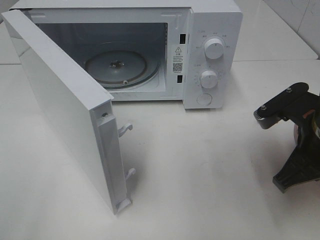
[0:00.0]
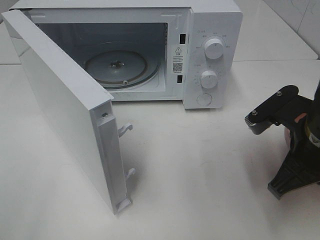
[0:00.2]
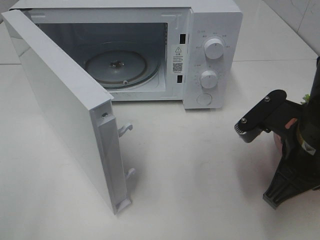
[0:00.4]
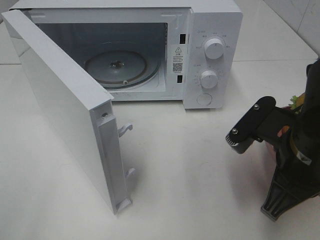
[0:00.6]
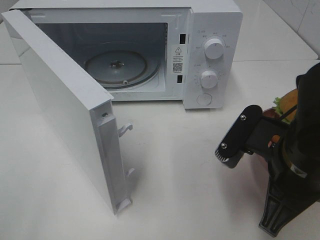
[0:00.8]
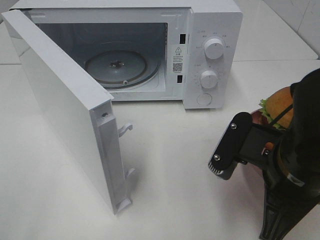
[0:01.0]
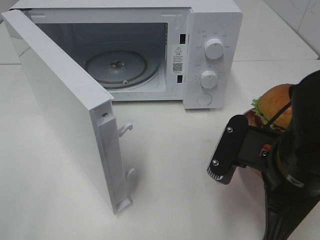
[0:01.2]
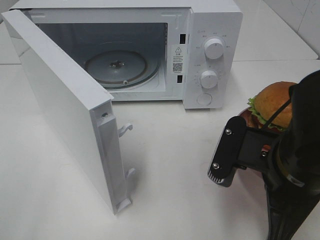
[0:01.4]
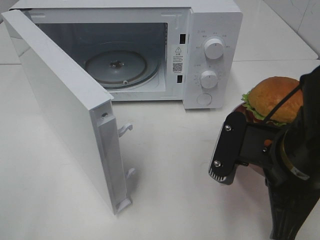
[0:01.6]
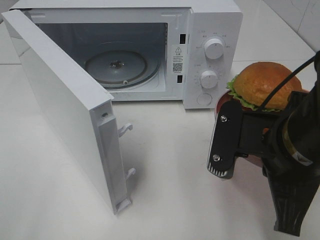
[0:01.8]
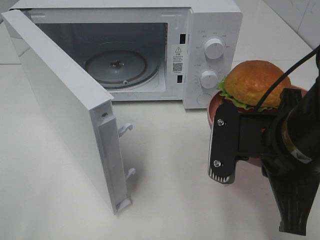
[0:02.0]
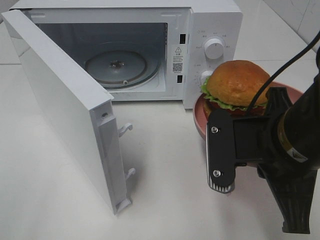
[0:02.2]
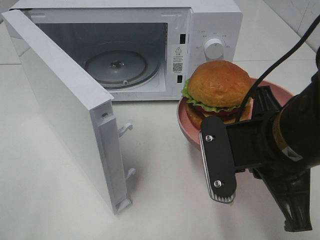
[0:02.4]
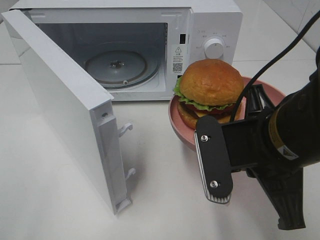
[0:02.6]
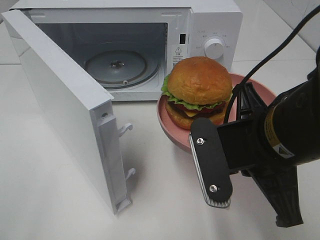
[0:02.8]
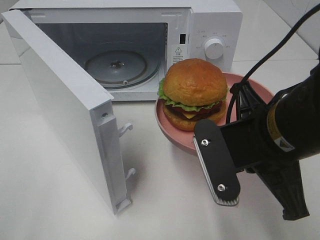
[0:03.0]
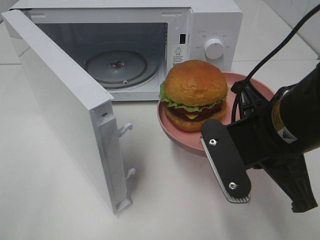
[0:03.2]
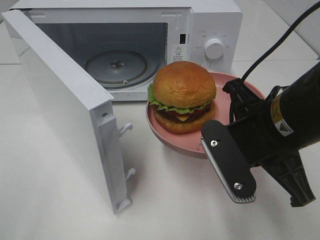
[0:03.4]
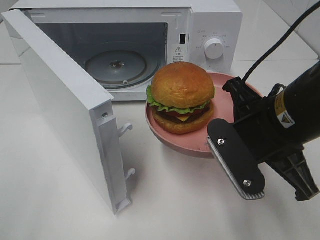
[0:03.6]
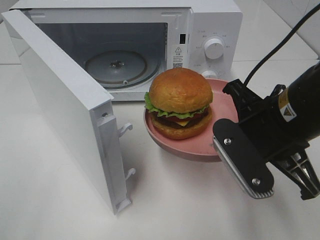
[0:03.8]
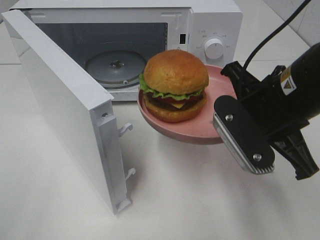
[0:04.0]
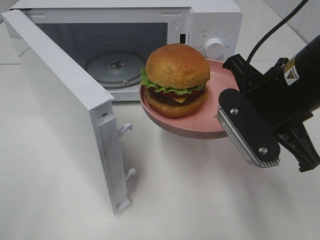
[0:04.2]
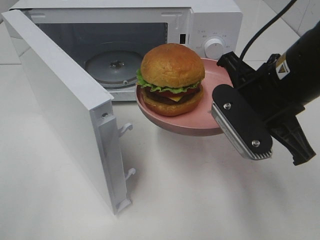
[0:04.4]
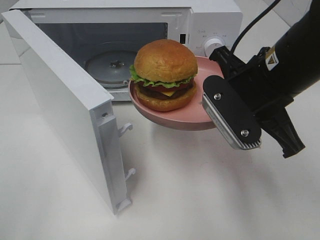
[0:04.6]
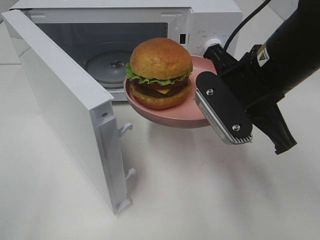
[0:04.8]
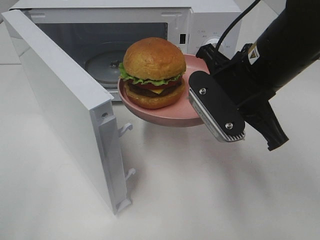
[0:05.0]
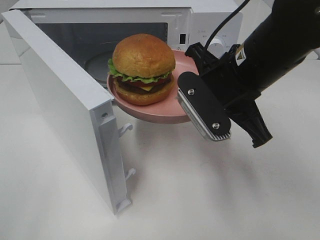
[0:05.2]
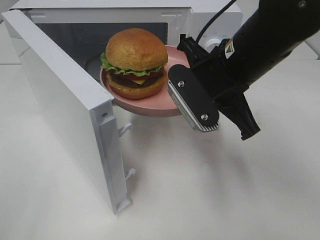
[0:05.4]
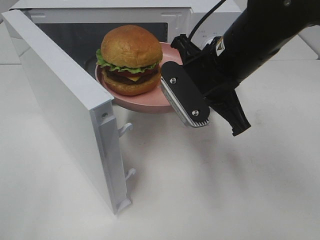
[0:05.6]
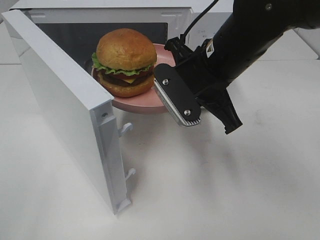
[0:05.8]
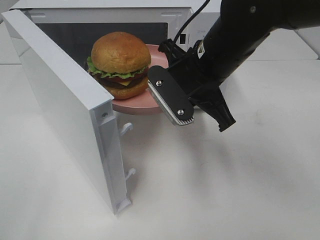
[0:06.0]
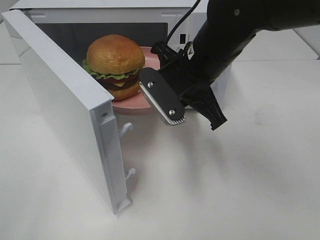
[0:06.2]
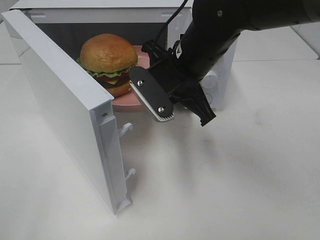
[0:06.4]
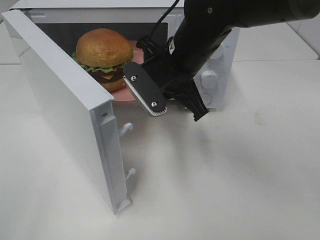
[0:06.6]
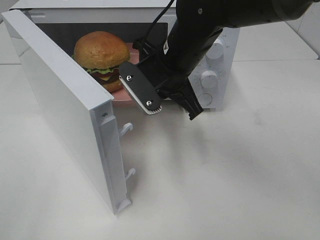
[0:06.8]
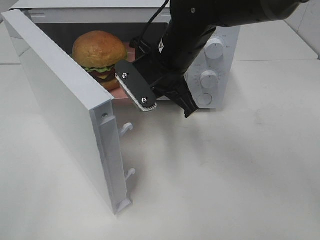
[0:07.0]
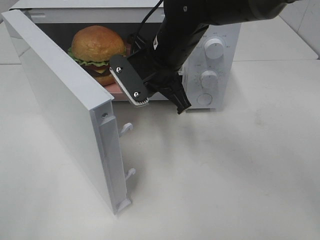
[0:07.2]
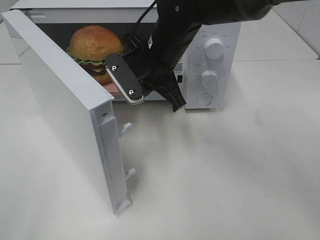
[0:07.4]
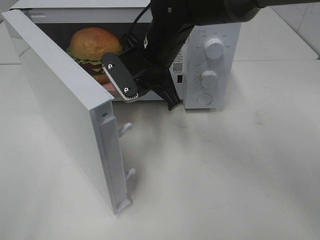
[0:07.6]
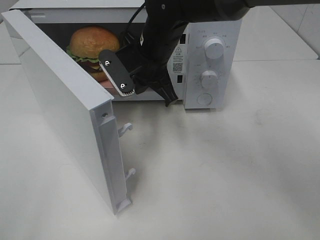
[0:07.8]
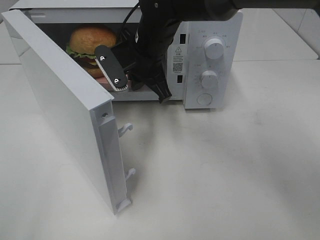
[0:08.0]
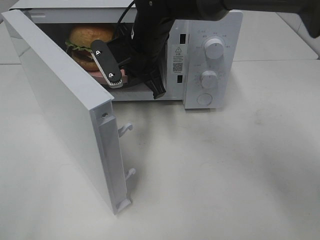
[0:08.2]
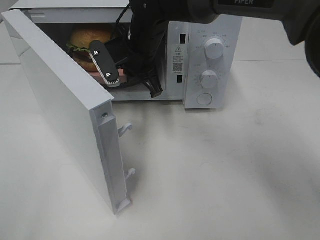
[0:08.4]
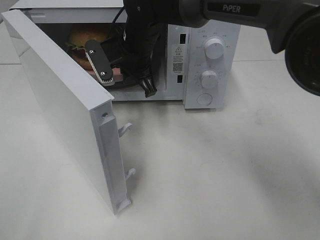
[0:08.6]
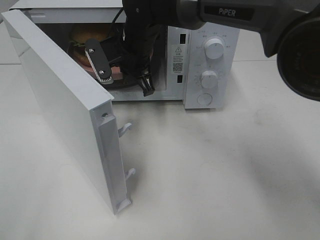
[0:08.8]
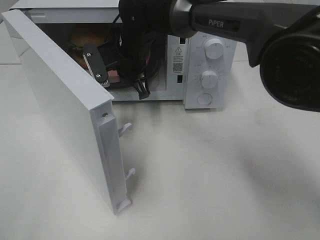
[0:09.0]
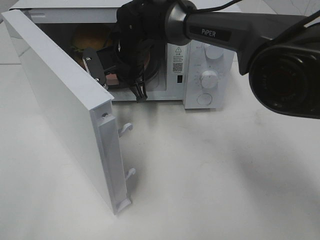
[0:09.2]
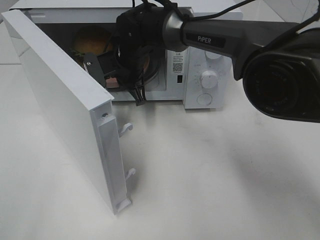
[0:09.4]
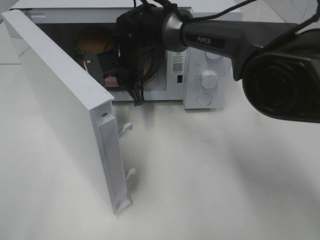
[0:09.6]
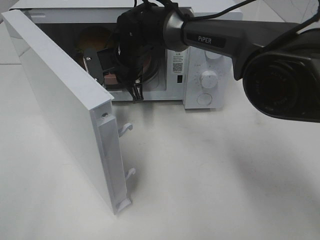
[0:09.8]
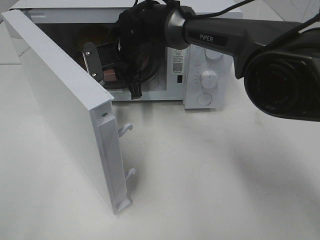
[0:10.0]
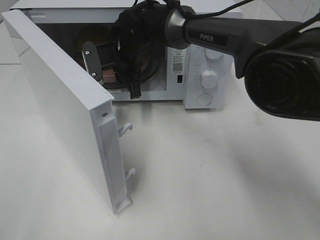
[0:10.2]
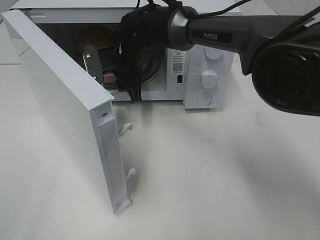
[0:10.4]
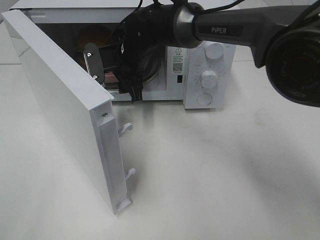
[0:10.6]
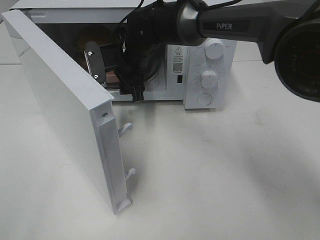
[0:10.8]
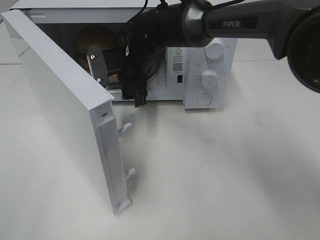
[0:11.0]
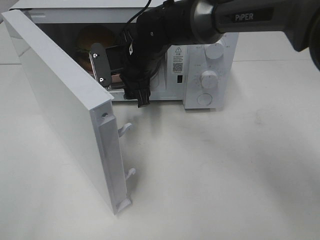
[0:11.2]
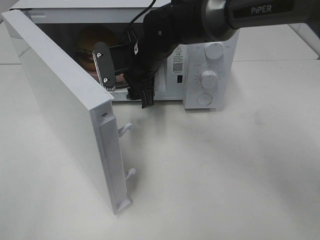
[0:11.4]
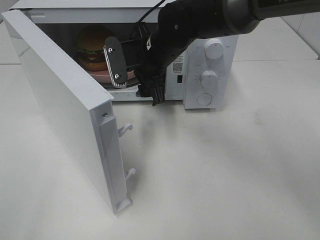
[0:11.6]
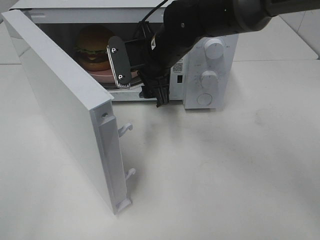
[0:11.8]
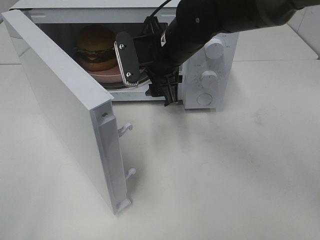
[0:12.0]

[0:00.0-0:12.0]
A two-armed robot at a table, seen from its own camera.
Task of the whole recording: Heat the burger.
Step, 0:00.0 to 0:10.4: Right hand: place the plate in the microwave.
0:00.0 to 0:01.6: The right gripper is displaced to the left by some 5 cm.
0:03.0 to 0:04.4: The right gripper moves forward, roughly 5 cm.
0:04.4 to 0:06.0: The right gripper heads forward and to the left, covering some 10 cm.
0:06.0 to 0:07.6: The right gripper is displaced to the left and forward by approximately 10 cm.
0:07.6 to 0:09.0: The right gripper heads forward, covering approximately 5 cm.
0:09.0 to 0:10.4: The right gripper opens up.
0:10.4 to 0:12.0: The right gripper shifts some 10 cm backward, to the right and upward.

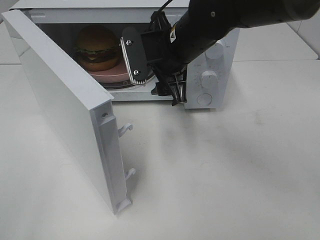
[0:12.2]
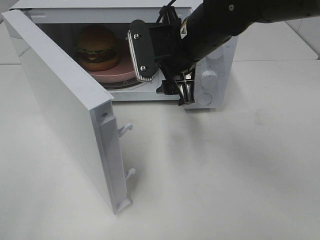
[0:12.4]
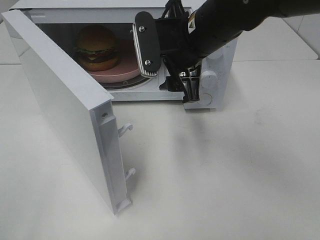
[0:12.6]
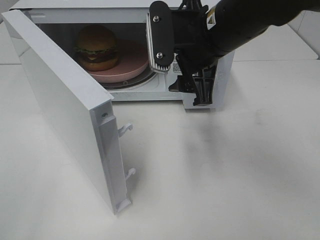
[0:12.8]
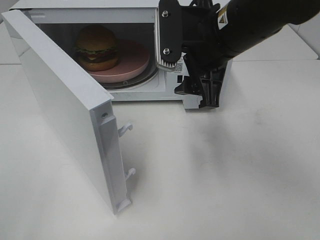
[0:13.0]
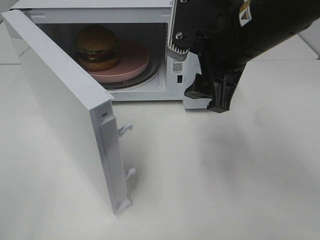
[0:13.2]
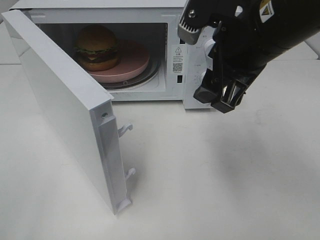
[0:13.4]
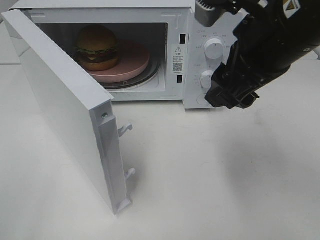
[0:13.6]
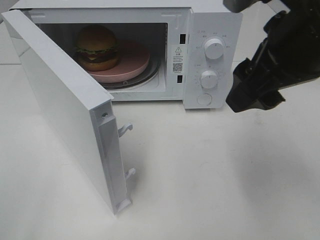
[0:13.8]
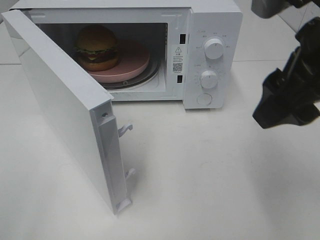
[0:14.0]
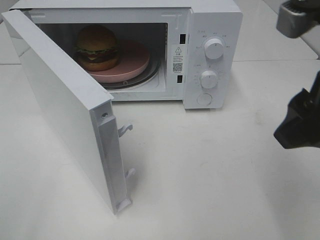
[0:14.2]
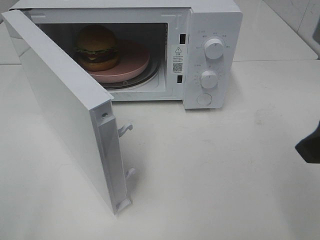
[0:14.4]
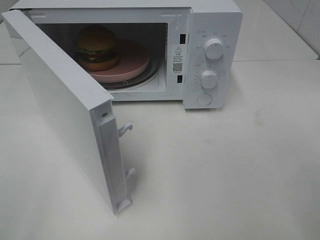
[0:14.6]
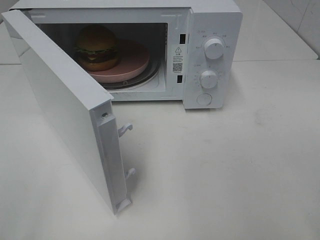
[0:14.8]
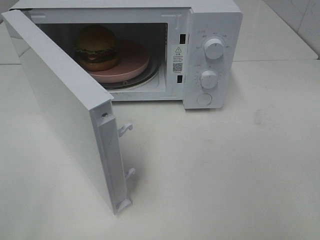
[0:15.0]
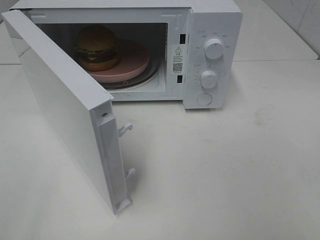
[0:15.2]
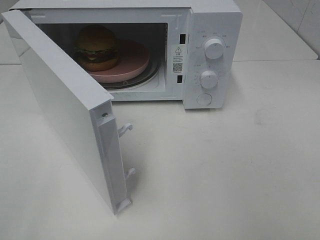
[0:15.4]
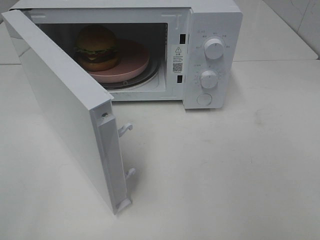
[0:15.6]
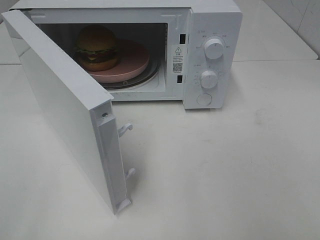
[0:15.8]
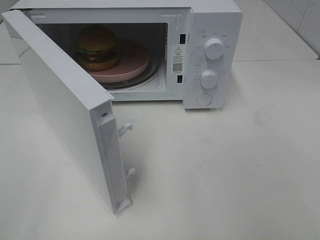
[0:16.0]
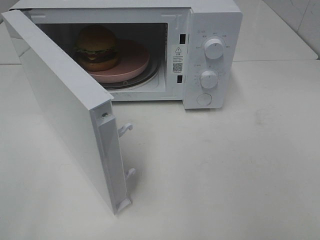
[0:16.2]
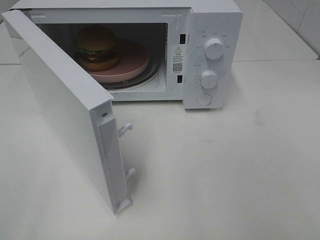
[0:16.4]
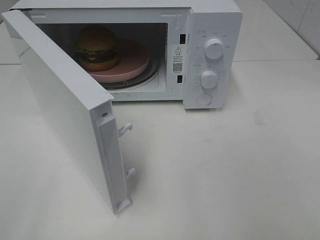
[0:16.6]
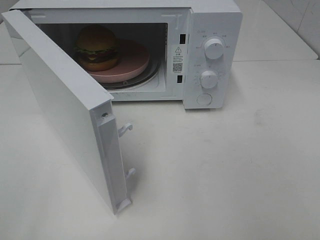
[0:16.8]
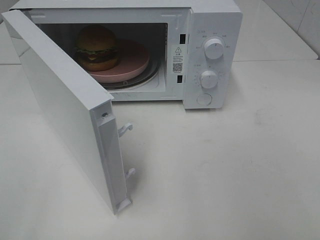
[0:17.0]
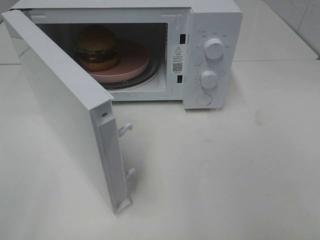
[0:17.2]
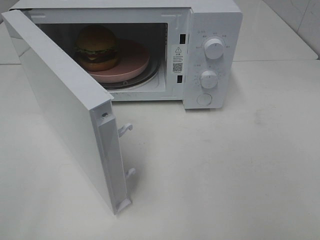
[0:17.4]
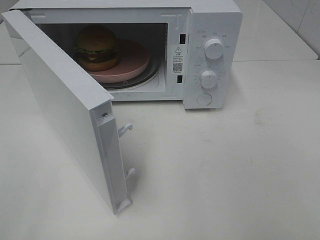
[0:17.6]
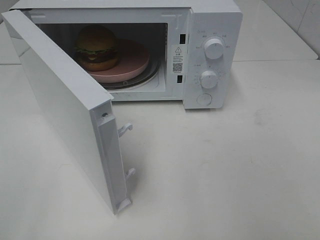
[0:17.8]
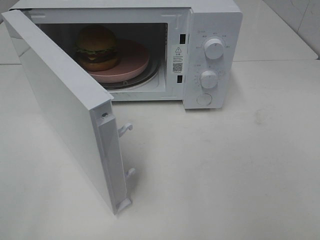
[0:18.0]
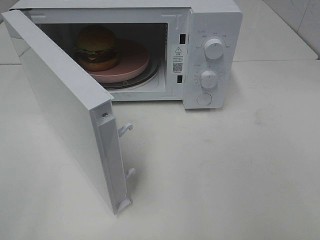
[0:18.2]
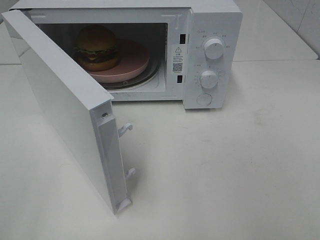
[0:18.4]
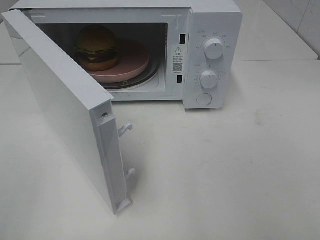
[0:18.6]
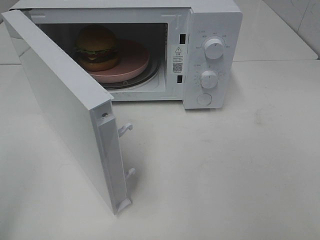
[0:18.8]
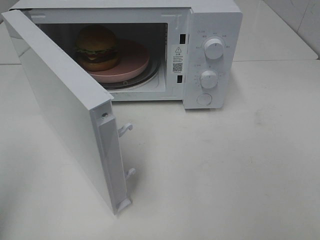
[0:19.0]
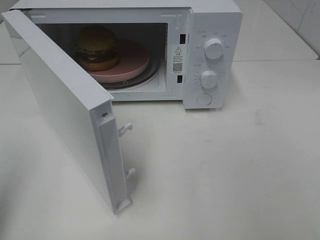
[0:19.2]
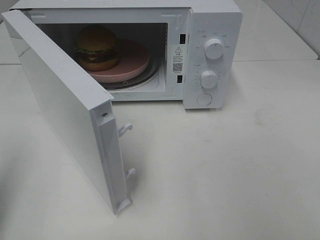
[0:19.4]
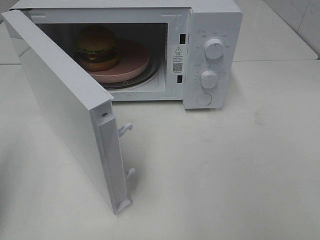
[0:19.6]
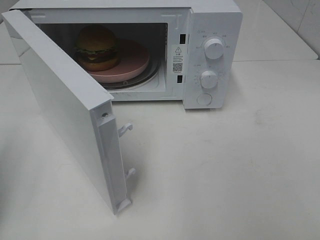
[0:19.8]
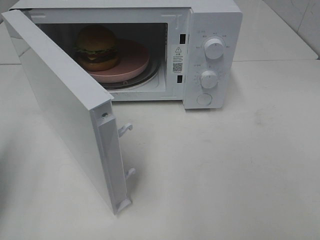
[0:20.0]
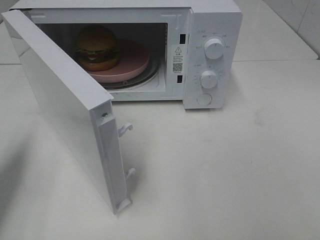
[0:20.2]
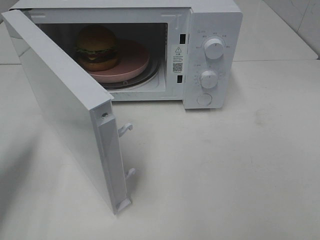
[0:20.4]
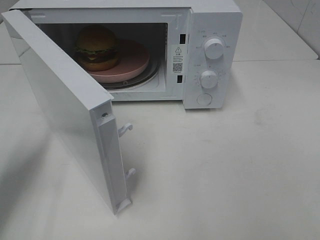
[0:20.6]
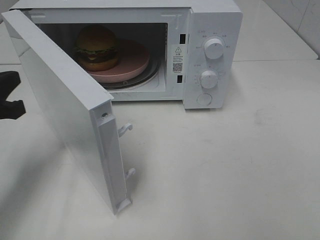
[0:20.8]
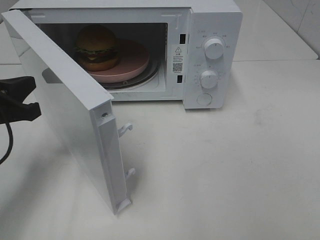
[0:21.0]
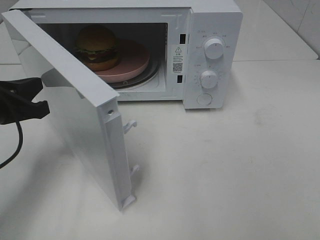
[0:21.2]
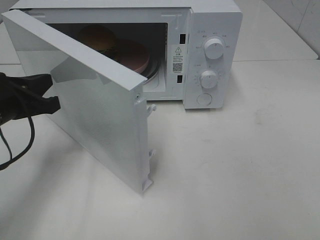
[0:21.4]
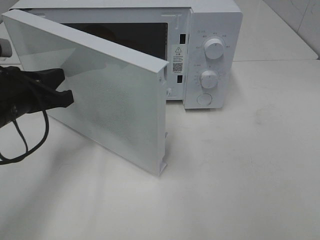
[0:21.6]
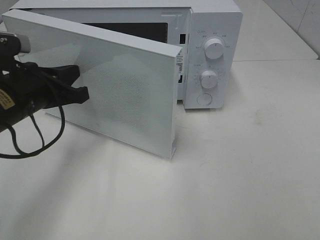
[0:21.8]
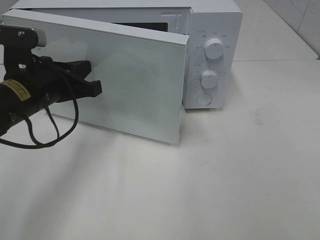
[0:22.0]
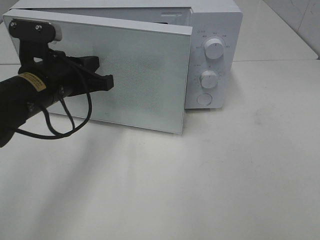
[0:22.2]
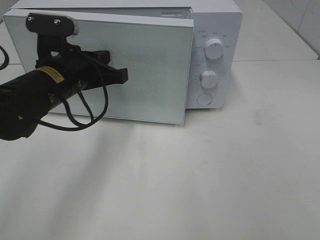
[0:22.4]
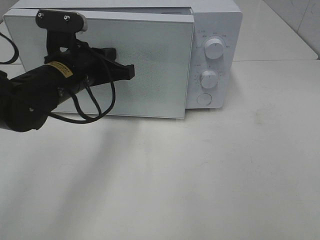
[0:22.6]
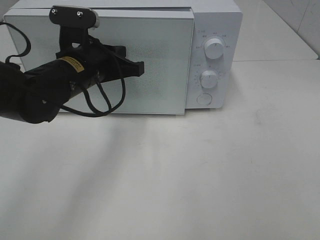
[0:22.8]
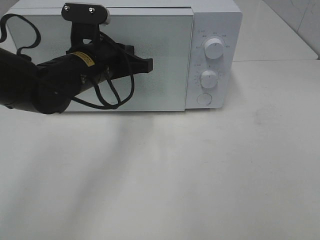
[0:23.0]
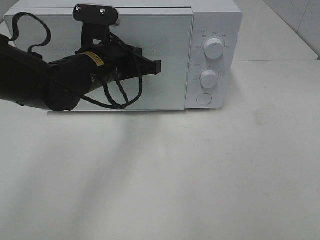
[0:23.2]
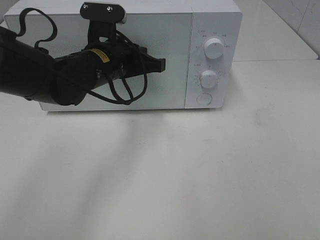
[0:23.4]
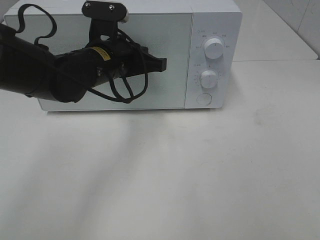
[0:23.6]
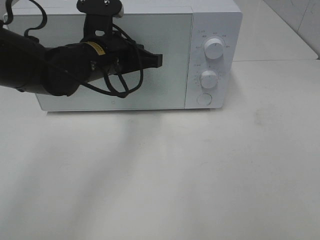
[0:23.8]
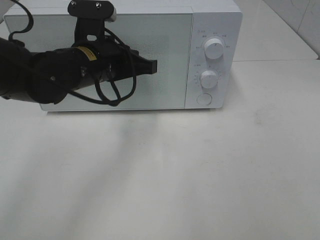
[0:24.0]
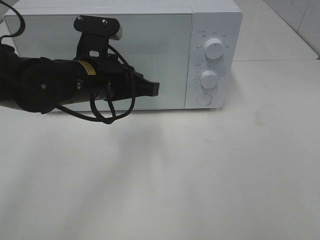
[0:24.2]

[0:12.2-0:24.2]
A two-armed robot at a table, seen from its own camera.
Task of the whole recording: Heat the burger.
0:12.2 to 0:13.8: The right gripper goes roughly 20 cm backward, to the right and upward.
0:13.8 to 0:15.2: The right gripper heads backward and to the right, covering approximately 20 cm.
0:16.6 to 0:18.2: The two grippers keep their place.
0:18.2 to 0:19.8: The left gripper shifts approximately 15 cm forward, and closes.
0:19.8 to 0:21.2: The left gripper heads to the right, forward and downward, covering about 15 cm.
0:21.2 to 0:22.6: The left gripper goes about 15 cm to the right and forward.
